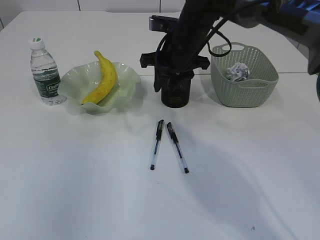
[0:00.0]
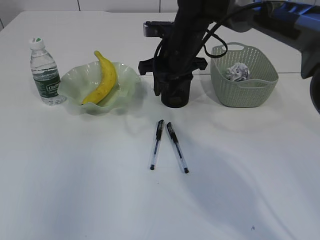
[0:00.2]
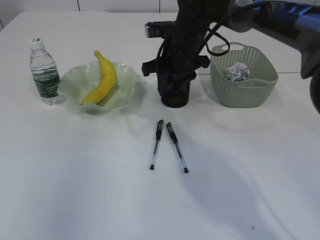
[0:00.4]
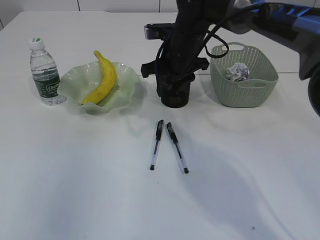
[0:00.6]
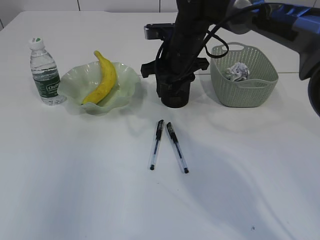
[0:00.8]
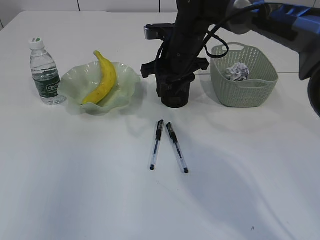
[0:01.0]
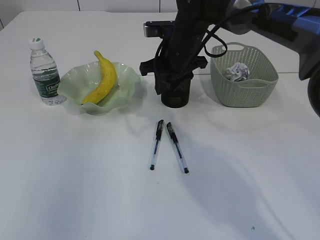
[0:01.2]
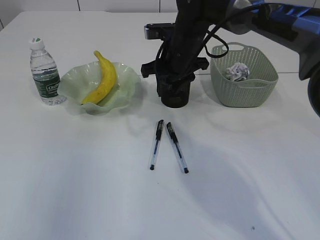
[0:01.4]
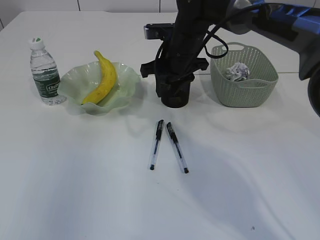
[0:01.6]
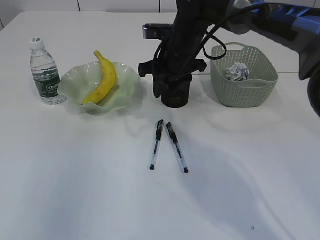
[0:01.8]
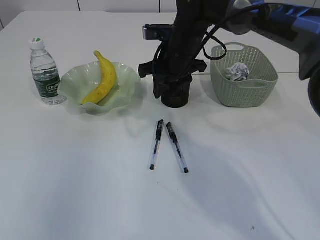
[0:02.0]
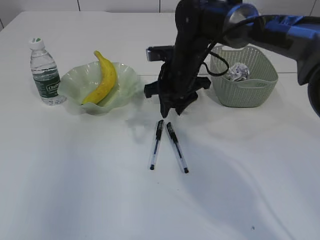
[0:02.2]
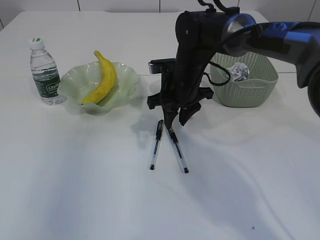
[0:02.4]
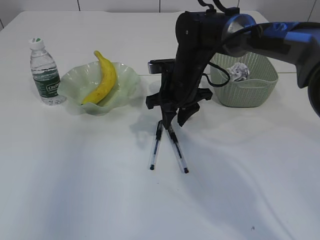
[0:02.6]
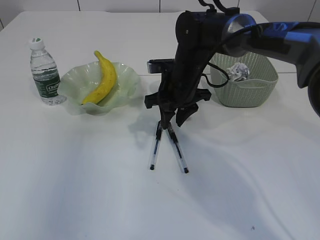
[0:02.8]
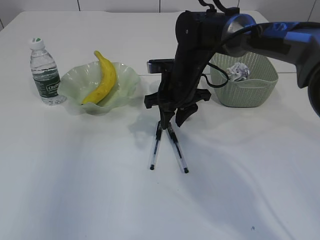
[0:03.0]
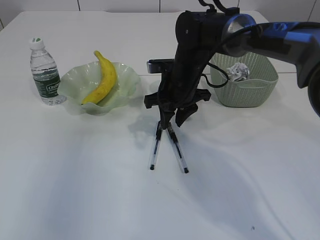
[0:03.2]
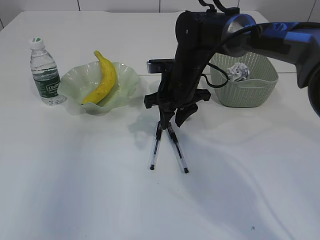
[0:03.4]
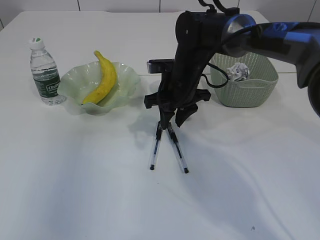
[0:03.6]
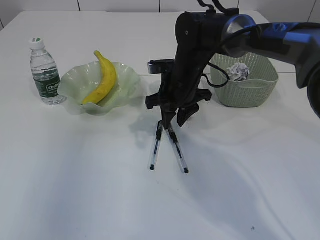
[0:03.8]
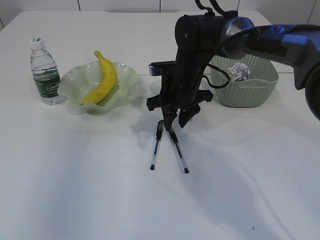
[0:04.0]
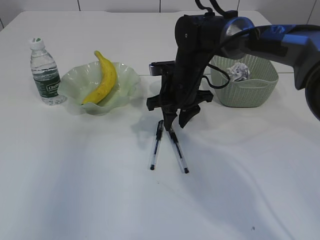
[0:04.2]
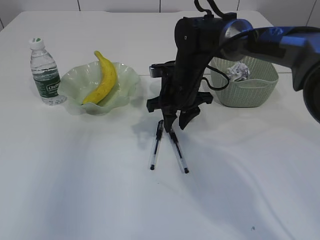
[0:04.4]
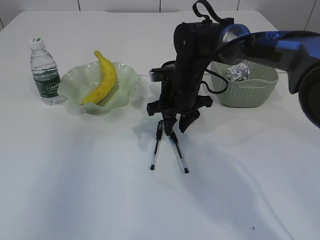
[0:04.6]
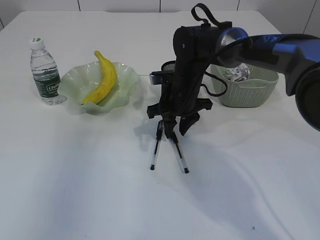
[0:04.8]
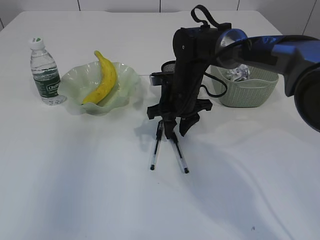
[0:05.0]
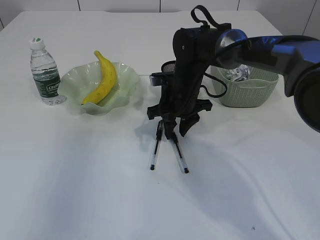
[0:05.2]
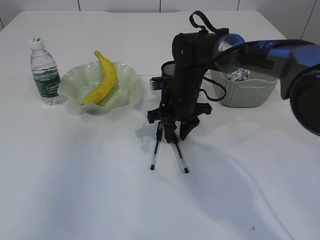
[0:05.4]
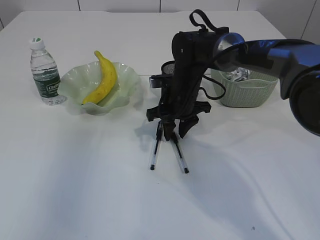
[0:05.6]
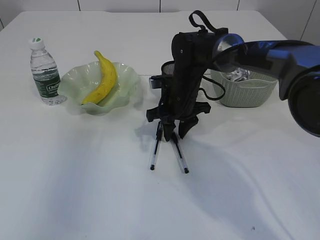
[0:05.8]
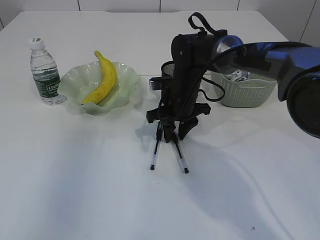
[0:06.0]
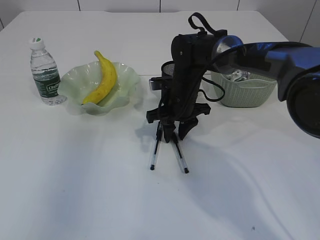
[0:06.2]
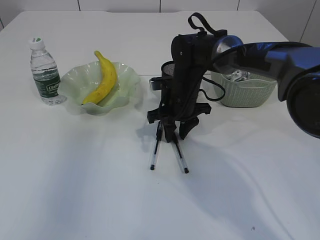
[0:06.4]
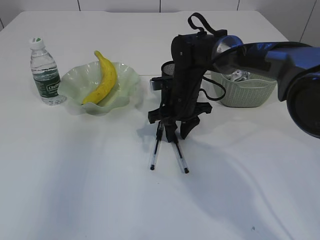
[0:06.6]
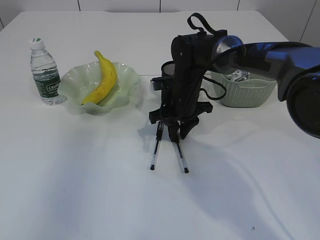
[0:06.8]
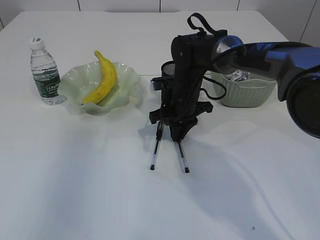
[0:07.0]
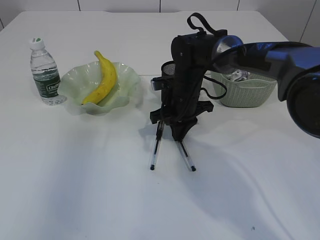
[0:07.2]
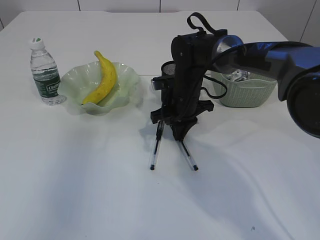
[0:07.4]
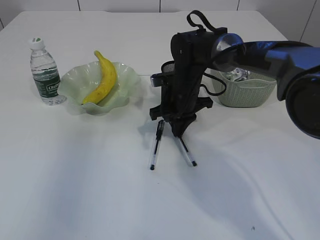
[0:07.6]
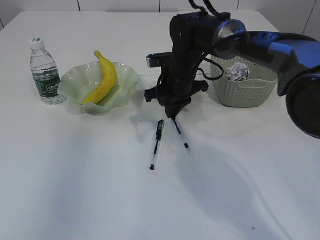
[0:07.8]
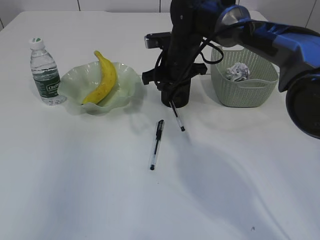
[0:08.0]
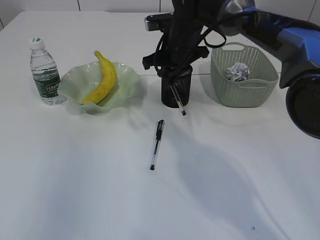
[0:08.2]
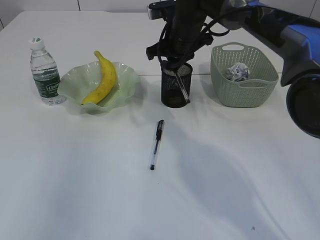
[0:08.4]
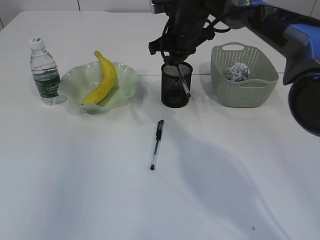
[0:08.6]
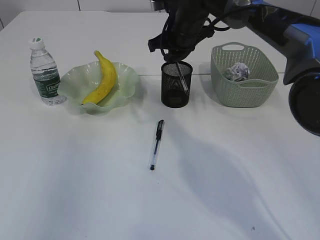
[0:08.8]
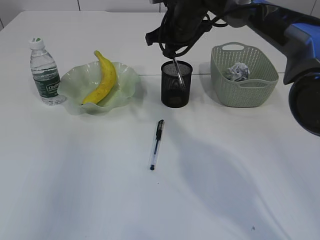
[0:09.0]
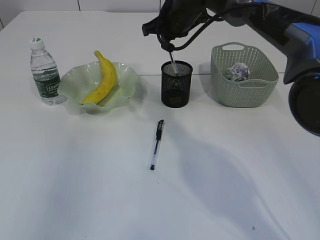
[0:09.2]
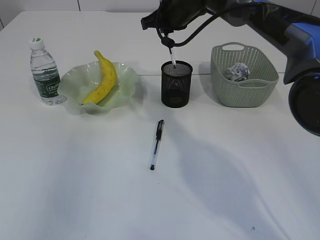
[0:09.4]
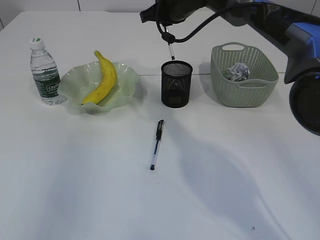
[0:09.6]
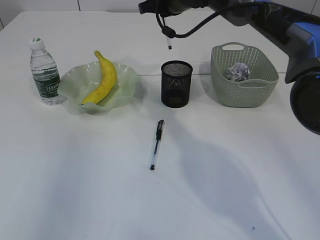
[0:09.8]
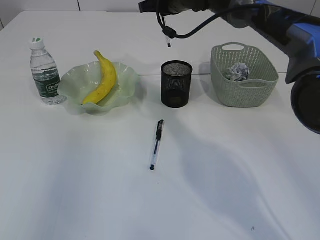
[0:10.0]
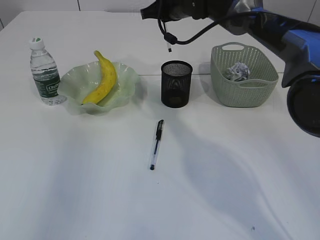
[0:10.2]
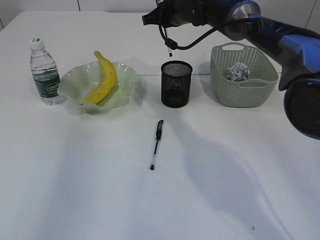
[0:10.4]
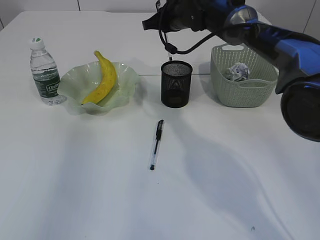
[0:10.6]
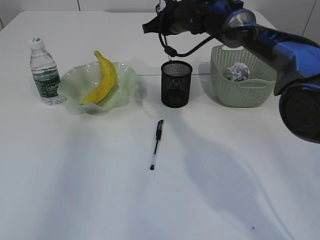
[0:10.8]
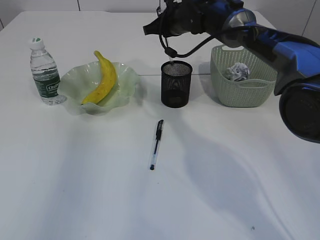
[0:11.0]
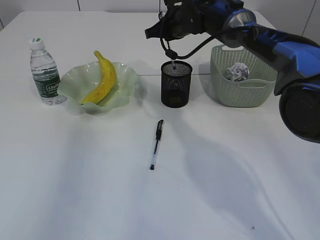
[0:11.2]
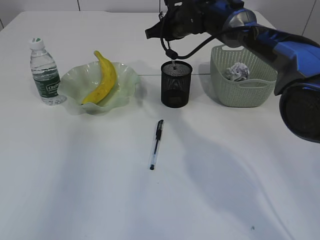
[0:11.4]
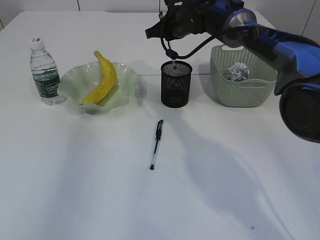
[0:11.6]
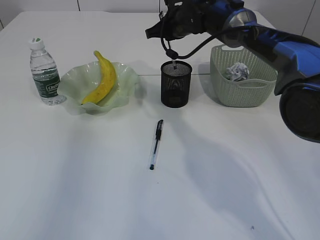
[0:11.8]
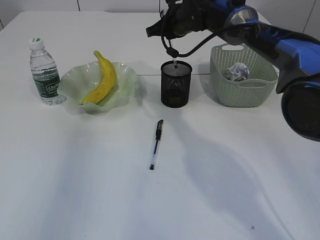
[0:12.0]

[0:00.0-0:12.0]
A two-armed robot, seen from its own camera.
Step, 0:00.0 to 0:08.0: Pick up the pen with right arm.
0:00.0 to 0:01.6: The grippers stay close to where they were, moving slightly.
0:01.6 to 0:03.0: The right gripper moves downward, approximately 5 cm.
0:03.0 to 0:04.4: Both grippers stay about where they are.
0:04.4 to 0:06.0: The grippers stay close to where they were, moving slightly.
0:06.0 to 0:07.6: The right gripper closes.
0:07.6 to 0:09.0: The right gripper is displaced upward and forward by roughly 15 cm.
0:10.4 to 0:12.0: The grippers make only small movements.

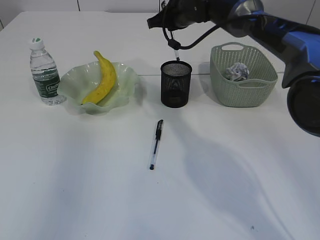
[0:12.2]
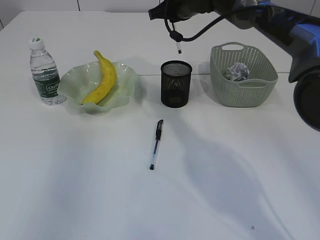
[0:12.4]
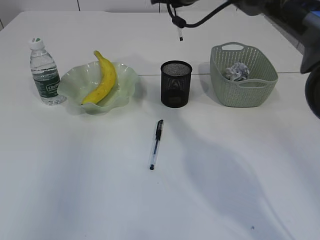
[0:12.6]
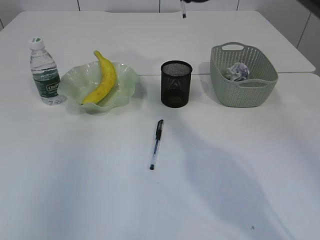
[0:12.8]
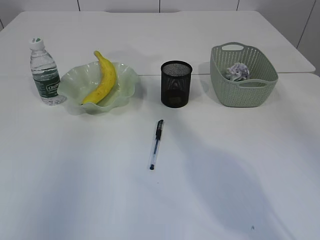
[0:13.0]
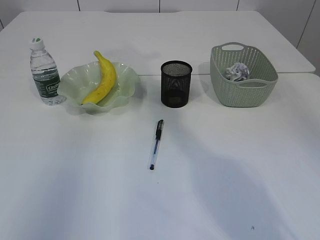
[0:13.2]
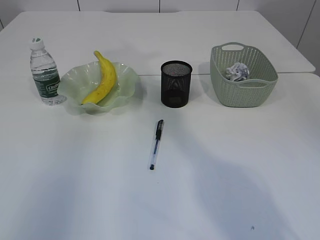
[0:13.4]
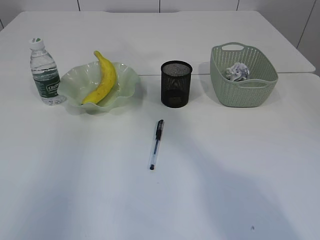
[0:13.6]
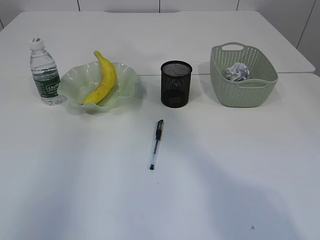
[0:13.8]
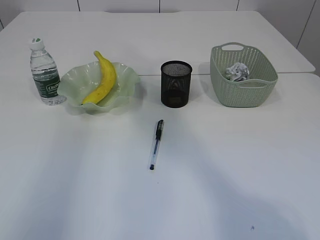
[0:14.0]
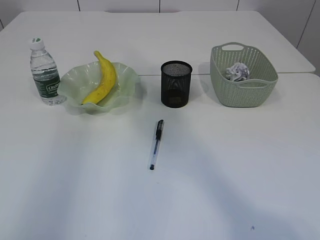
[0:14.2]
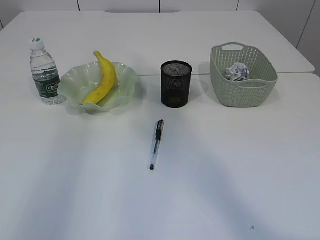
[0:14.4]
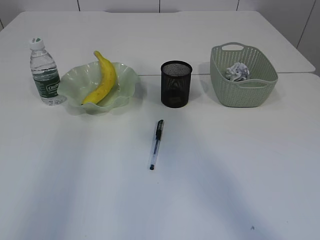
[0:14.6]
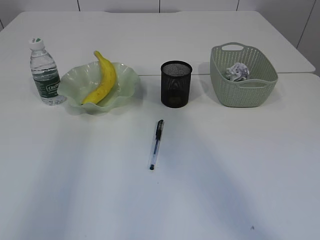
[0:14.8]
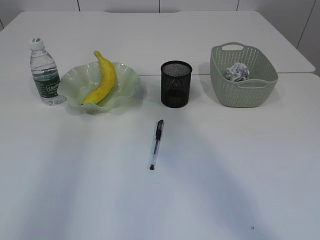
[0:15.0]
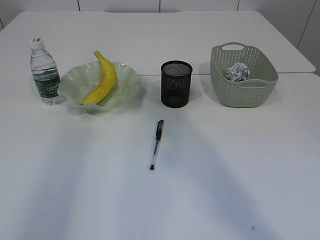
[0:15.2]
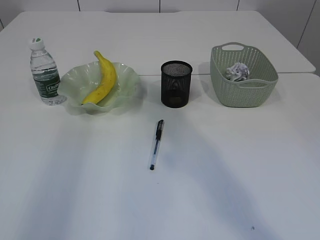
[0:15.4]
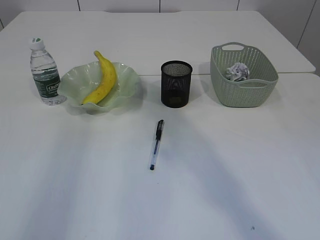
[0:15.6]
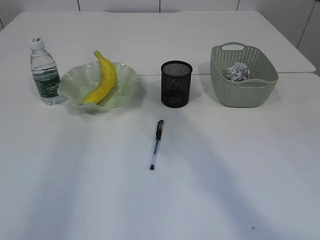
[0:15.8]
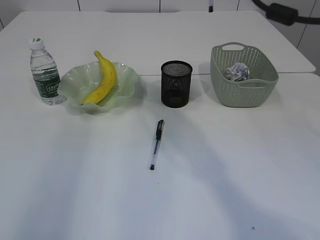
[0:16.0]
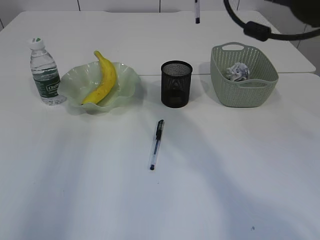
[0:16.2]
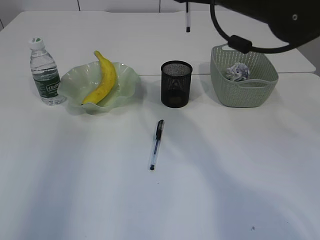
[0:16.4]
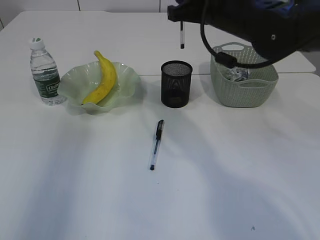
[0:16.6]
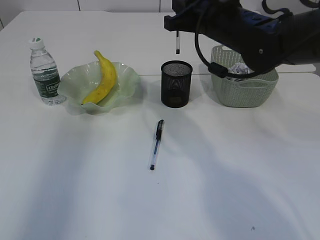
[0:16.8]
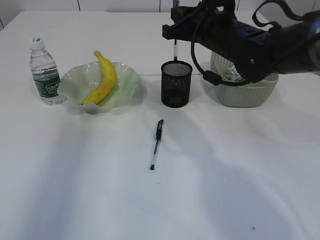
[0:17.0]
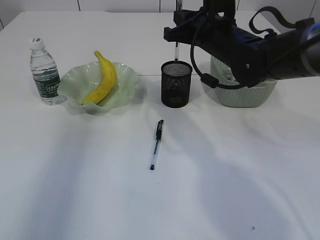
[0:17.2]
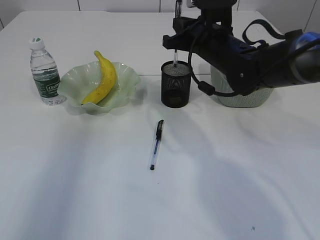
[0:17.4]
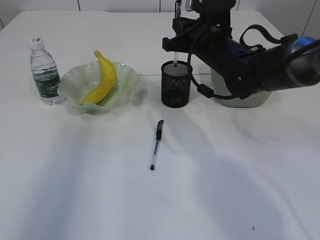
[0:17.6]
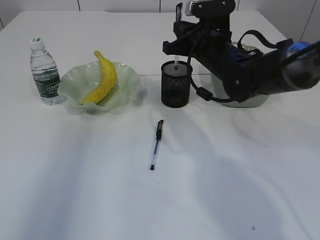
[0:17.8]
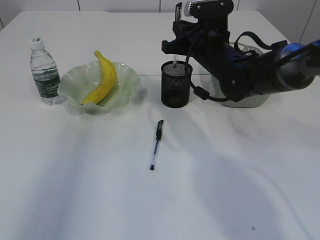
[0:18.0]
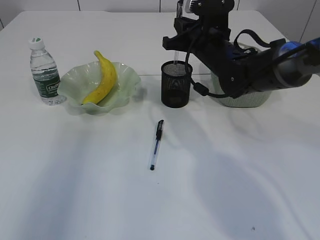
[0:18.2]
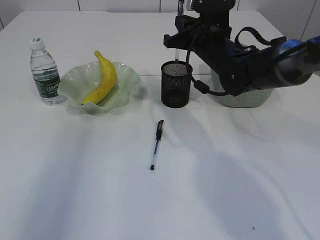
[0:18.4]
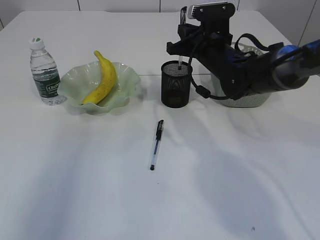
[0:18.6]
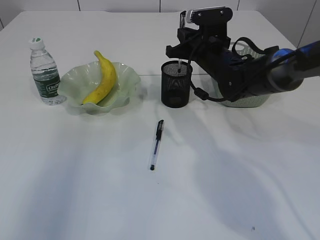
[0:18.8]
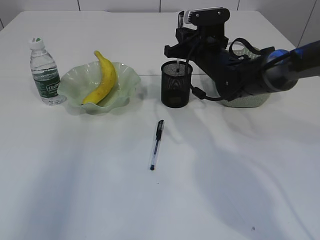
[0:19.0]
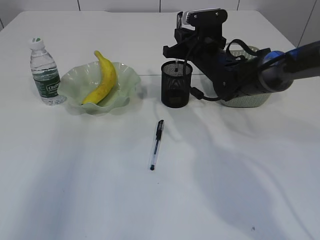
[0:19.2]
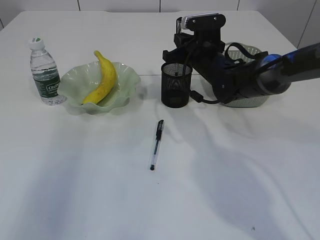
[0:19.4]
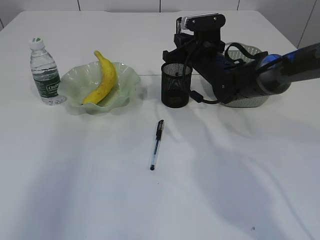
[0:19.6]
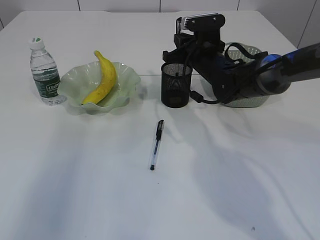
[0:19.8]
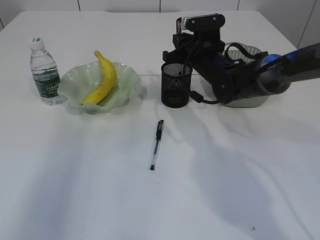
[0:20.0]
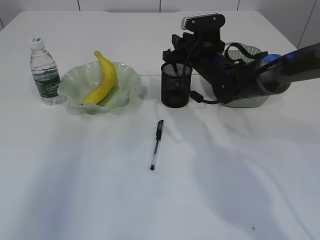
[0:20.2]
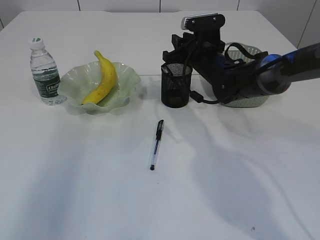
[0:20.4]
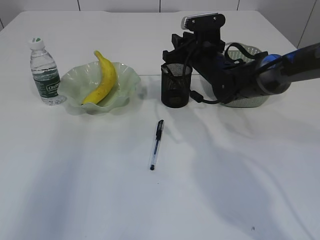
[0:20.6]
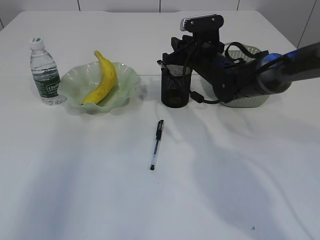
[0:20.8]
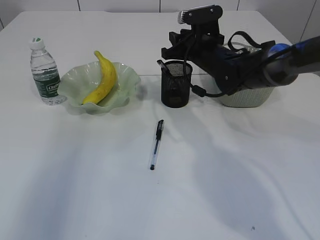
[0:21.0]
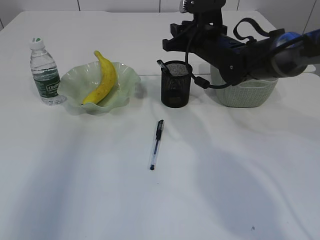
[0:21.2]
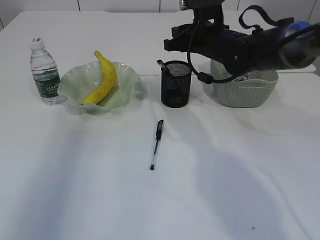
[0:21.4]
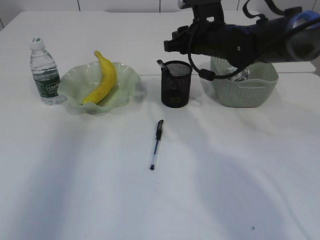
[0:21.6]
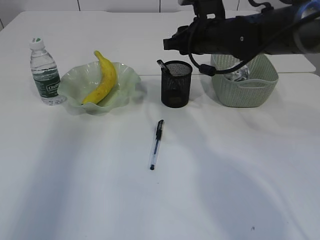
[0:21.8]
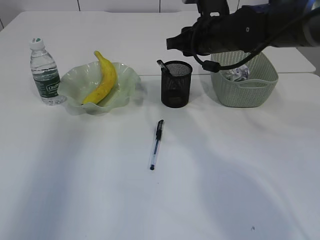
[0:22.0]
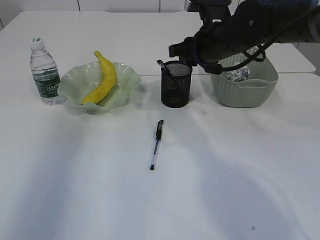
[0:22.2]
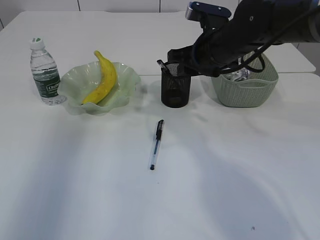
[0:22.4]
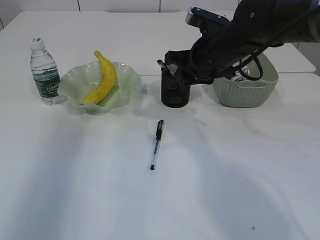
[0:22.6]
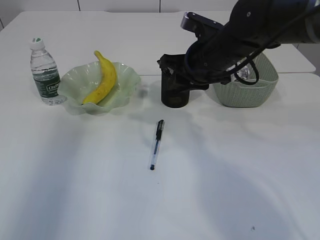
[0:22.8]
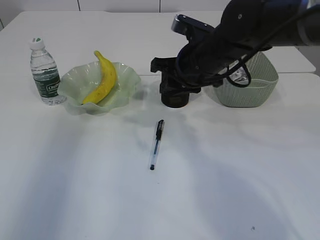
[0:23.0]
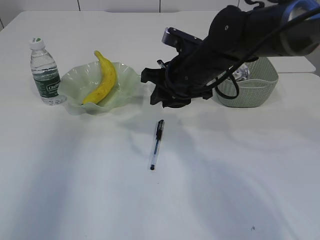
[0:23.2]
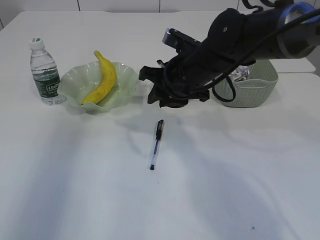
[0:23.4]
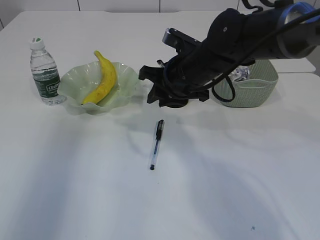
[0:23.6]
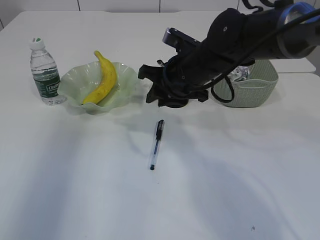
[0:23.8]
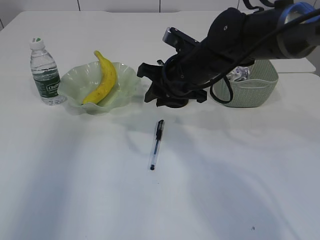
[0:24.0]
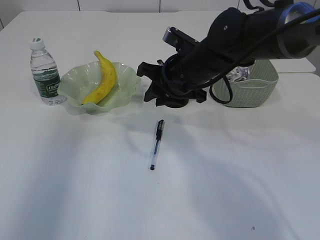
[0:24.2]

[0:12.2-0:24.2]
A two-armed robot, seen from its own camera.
Step, 0:12.2 to 0:20.4: Place the pen into the pen holder.
0:12.2 to 0:13.8: The right gripper shifts approximately 40 cm upward and backward. Meanwhile the left gripper shifts some 5 cm forward.
0:15.2 to 0:16.6: The right gripper heads downward and forward, covering roughly 25 cm.
0:16.6 to 0:18.2: The right gripper shifts approximately 10 cm downward.
0:18.2 to 0:21.2: The grippers move only a little.
0:21.2 to 0:22.6: The right gripper moves backward, about 5 cm.
0:22.6 to 0:24.2: The right gripper changes place by some 5 cm.
